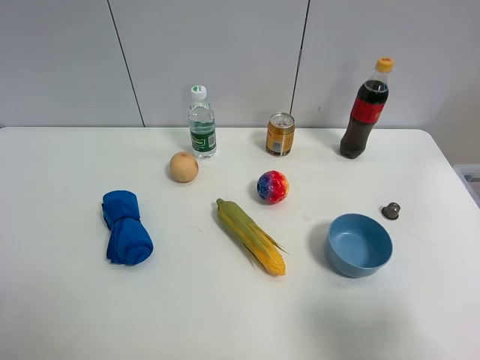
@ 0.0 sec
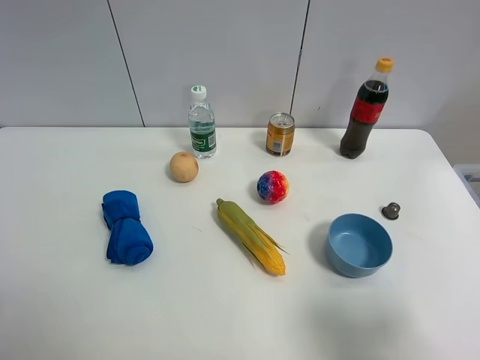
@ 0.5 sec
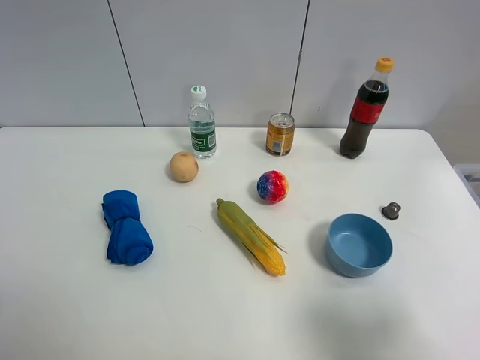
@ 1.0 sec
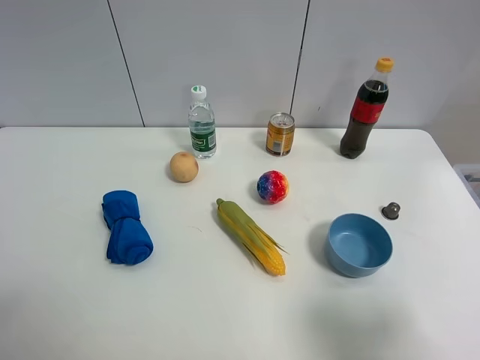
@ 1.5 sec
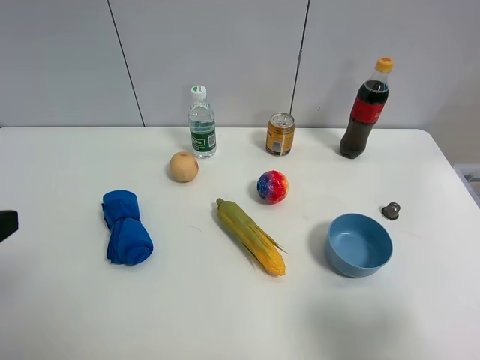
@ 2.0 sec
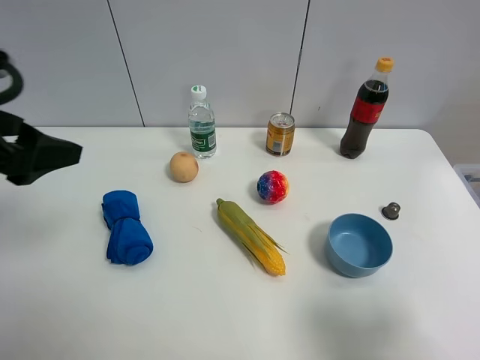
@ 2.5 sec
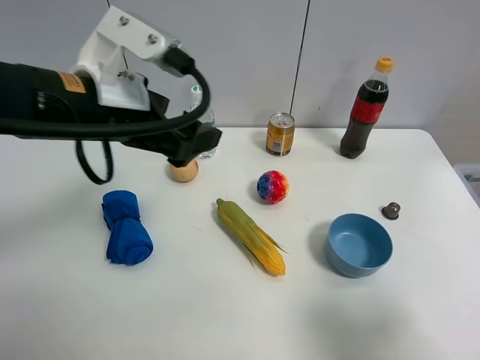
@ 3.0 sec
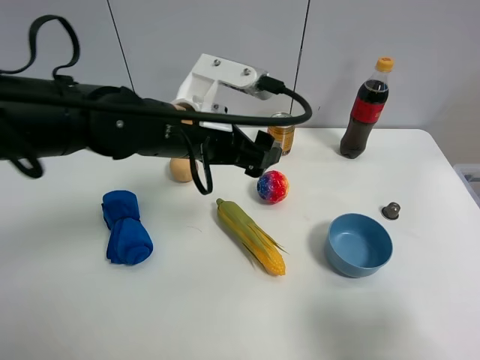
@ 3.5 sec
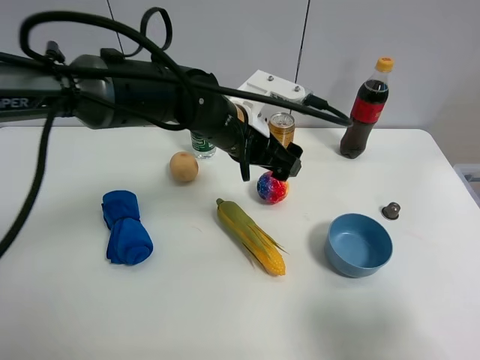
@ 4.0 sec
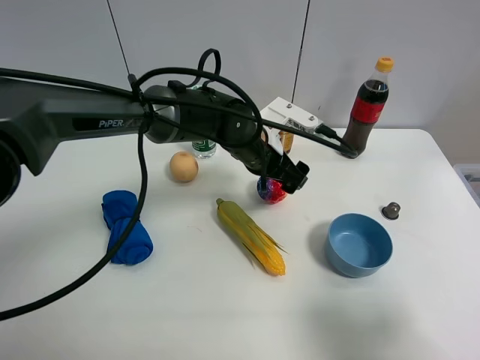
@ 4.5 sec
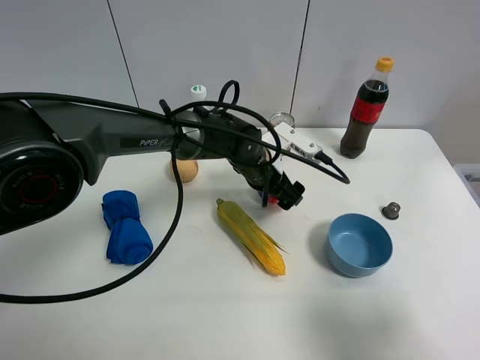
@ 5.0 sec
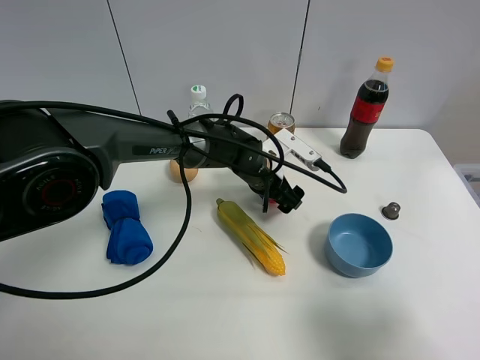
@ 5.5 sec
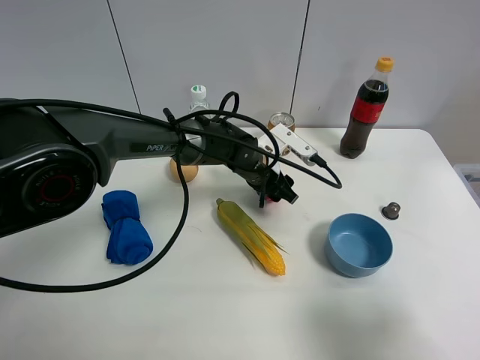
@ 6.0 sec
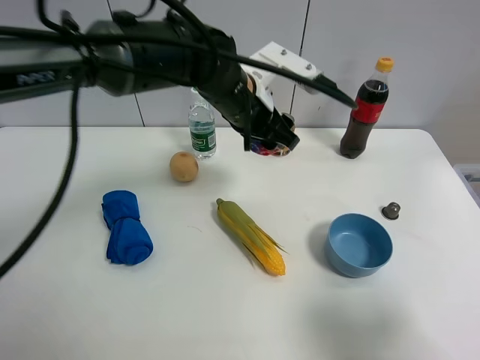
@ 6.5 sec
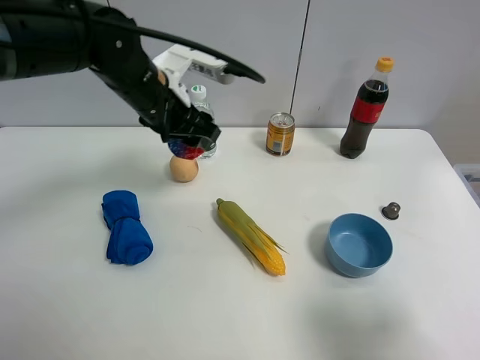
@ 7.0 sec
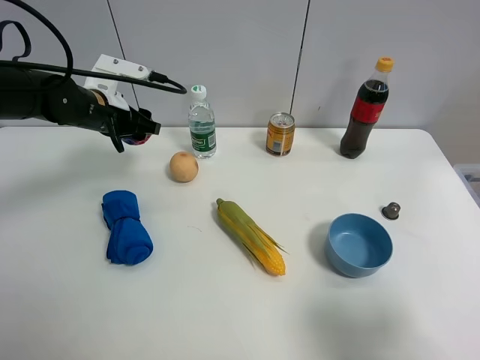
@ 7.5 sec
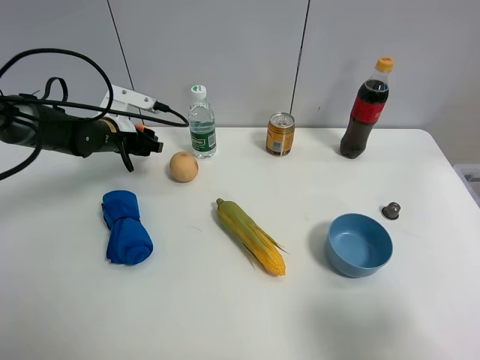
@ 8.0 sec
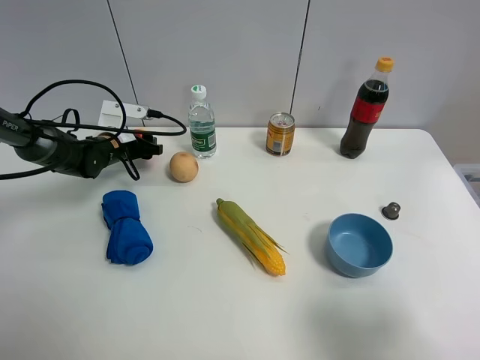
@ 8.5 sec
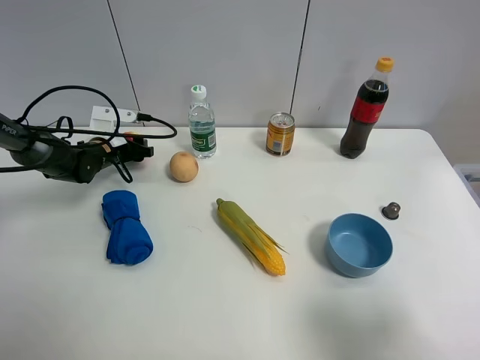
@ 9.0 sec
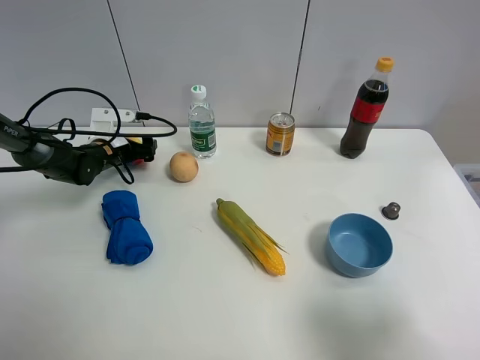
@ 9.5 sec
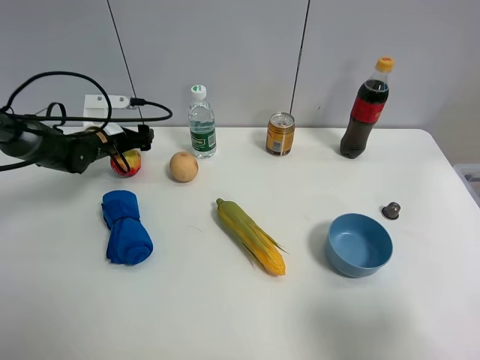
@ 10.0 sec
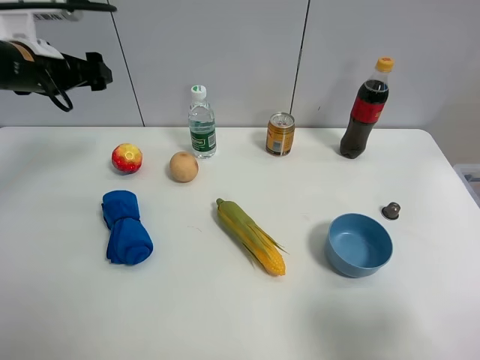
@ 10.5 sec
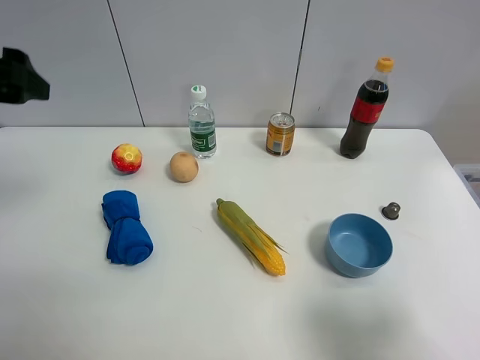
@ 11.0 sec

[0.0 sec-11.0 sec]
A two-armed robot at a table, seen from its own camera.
Task of the whole recording: the gripper move the object.
Step, 0.0 sec to 5.5 sec: Grasp the colorful ball with the left gripper.
Step, 6.0 sec to 9.0 sec: Place the colorful ball on the table with the left gripper.
2.0 sec to 3.5 sec: The left gripper heads to the right and forward, covering approximately 30 cm.
3.5 sec to 5.5 sec: The left gripper shifts about 20 cm downward, forward and to the right.
5.5 sec to 7.5 sec: The left gripper is displaced to the left by roughly 25 cm, and closes its fingers.
7.5 sec to 9.0 sec: The left gripper shifts approximately 15 cm downward.
9.0 sec to 11.0 sec: The left gripper is displaced upward and backward by roughly 35 cm, and opens.

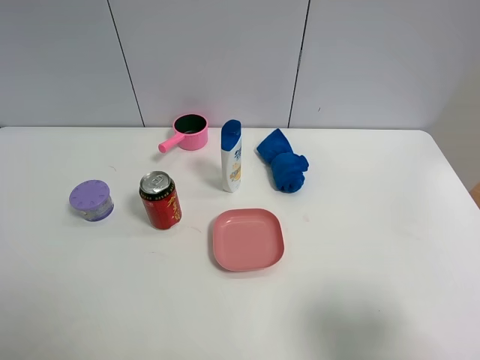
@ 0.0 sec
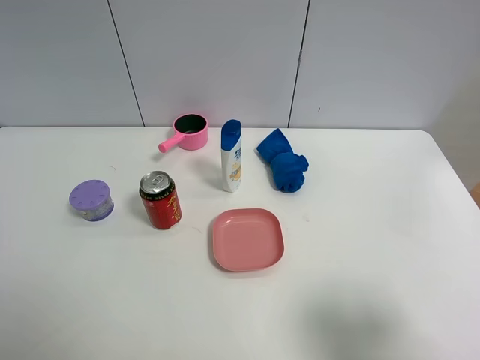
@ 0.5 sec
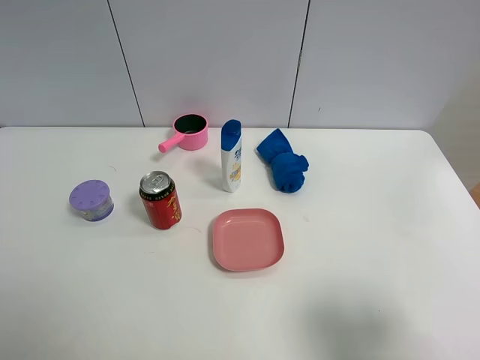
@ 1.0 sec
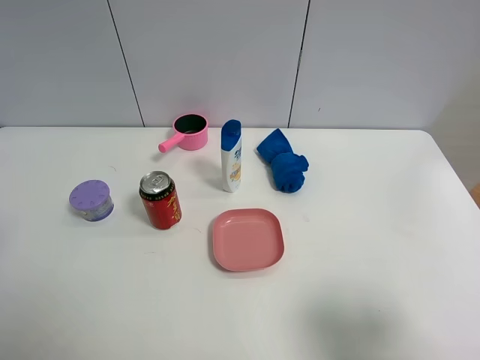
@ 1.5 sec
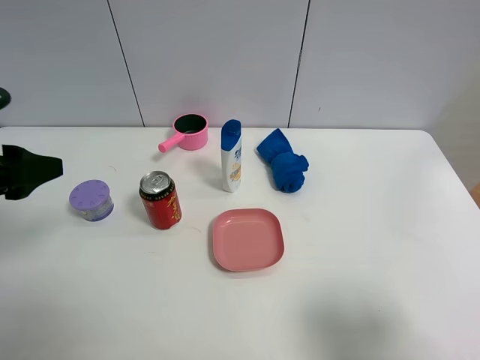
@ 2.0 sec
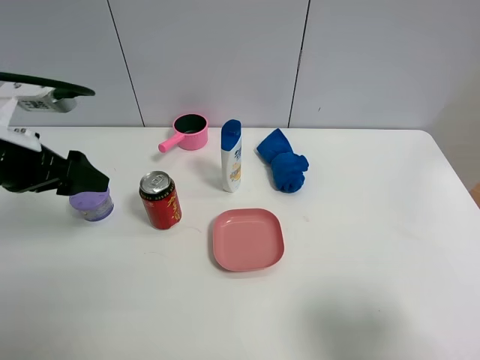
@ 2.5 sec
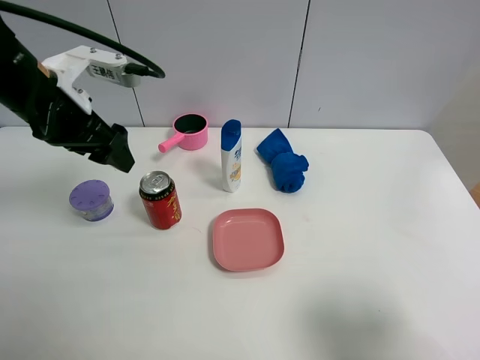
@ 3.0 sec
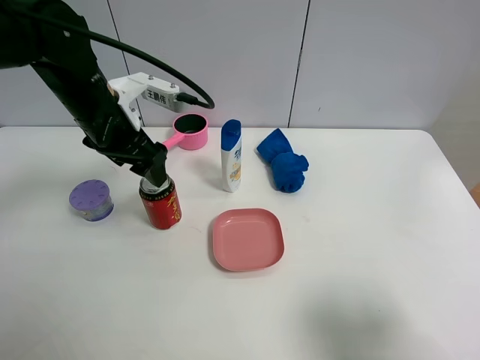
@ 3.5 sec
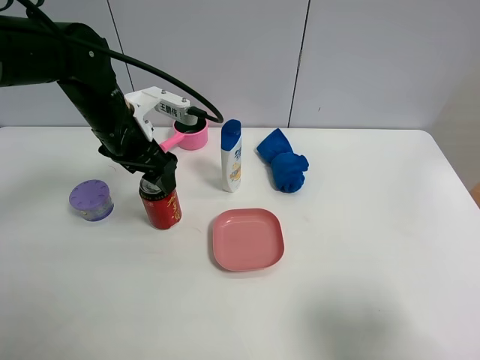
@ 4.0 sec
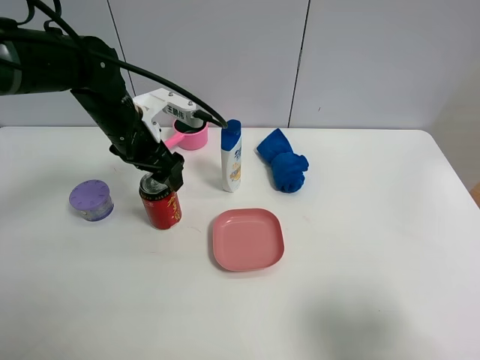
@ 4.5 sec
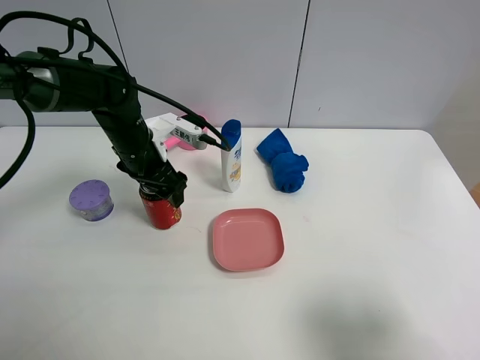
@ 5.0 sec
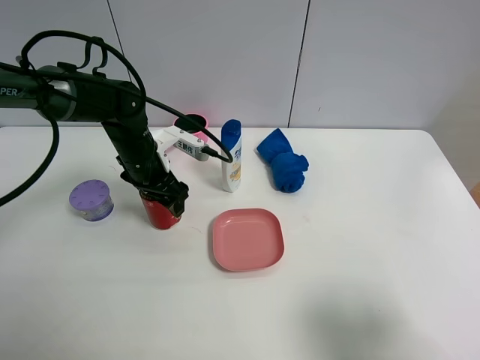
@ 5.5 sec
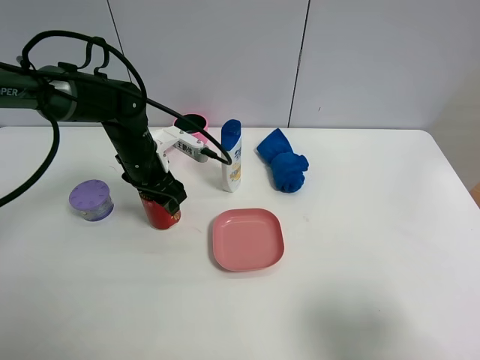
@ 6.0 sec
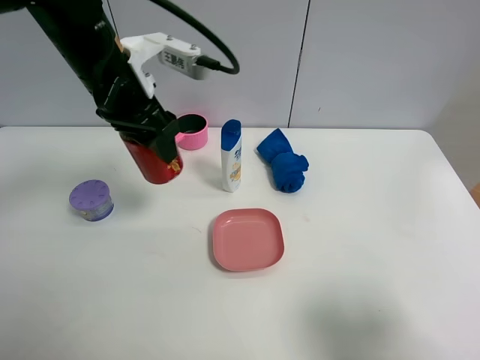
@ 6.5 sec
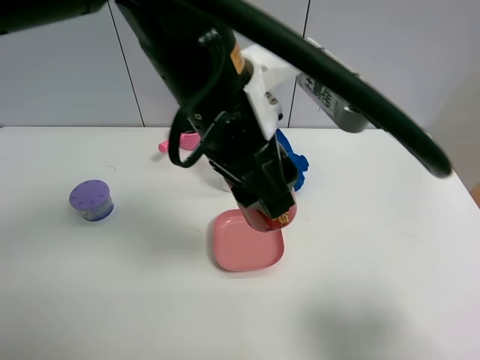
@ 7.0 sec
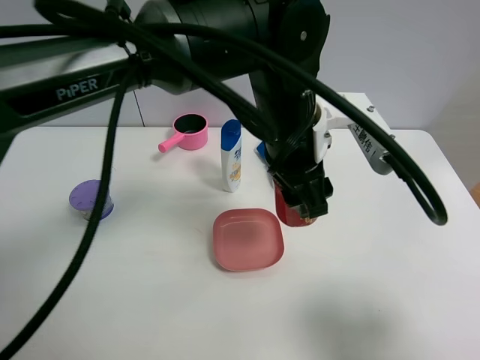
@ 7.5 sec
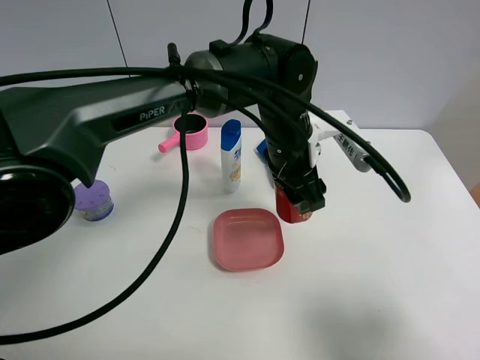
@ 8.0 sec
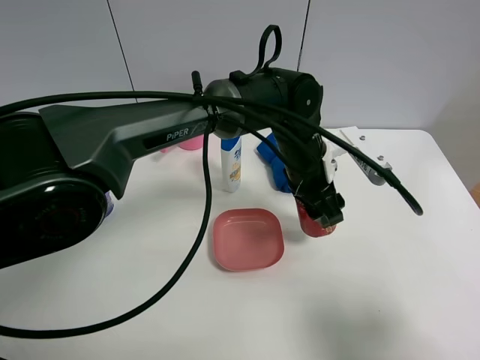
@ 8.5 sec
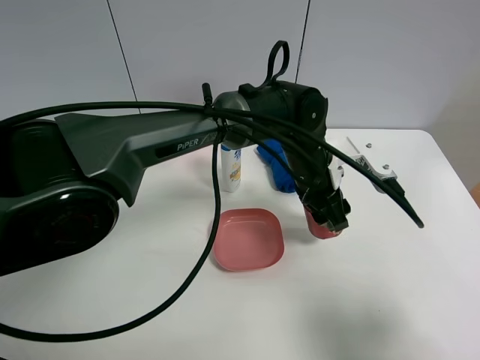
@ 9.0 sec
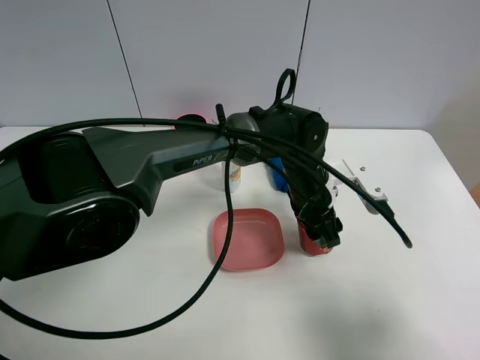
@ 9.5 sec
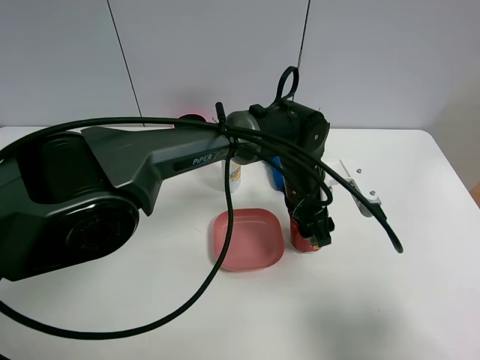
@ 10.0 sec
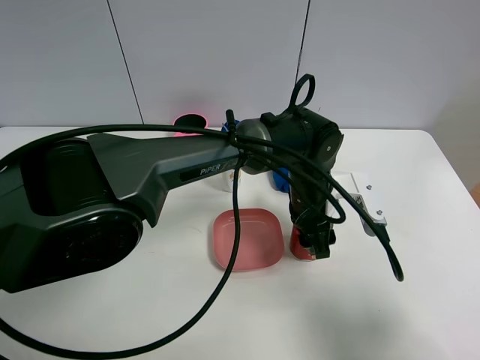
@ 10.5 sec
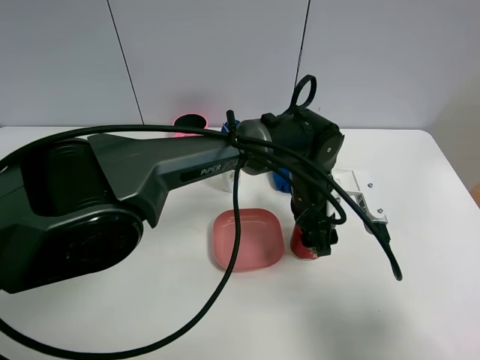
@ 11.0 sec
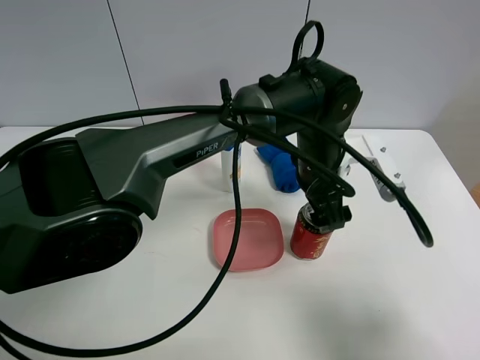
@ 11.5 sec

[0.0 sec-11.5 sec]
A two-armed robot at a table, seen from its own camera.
Task of the whole recording: the gripper move the object.
Step, 0.0 sec to 5.5 sec: Grasp the Jia Duo Bao with the left gripper.
Step, 6.0 sec to 11.0 sec: Place the Jia Duo Bao on the table with the left gripper.
0.0 sec to 2.0 sec: The left gripper moves forward, roughly 20 cm.
2.0 sec to 4.0 sec: The left gripper goes about 20 cm forward and to the right.
4.0 sec to 6.0 sec: The left gripper shifts about 10 cm downward, and closes.
6.0 sec to 7.5 sec: The left gripper is displaced to the right, upward and backward by roughly 25 cm.
7.5 sec to 9.5 sec: The left gripper shifts roughly 15 cm downward.
9.5 sec to 11.5 sec: The left gripper shifts roughly 5 cm upward, and opens its fingers.

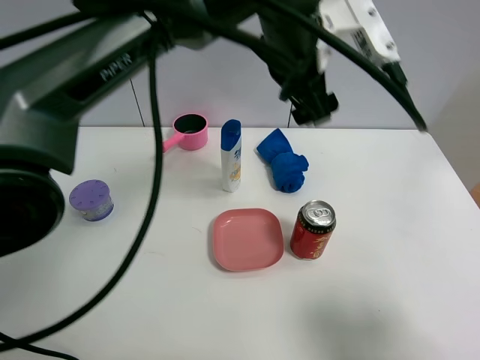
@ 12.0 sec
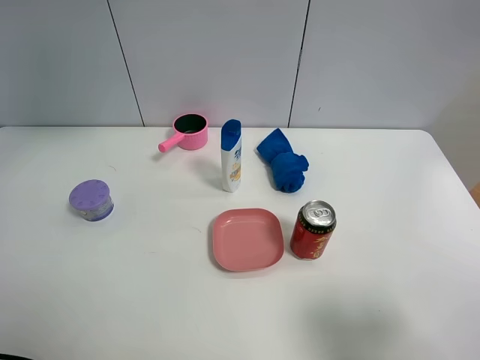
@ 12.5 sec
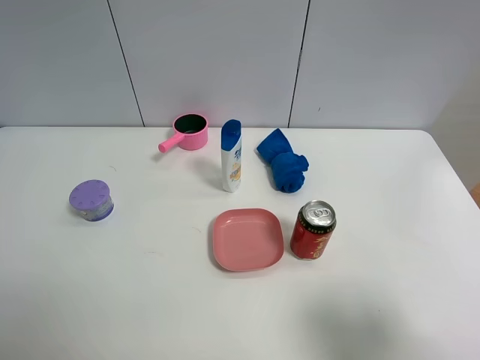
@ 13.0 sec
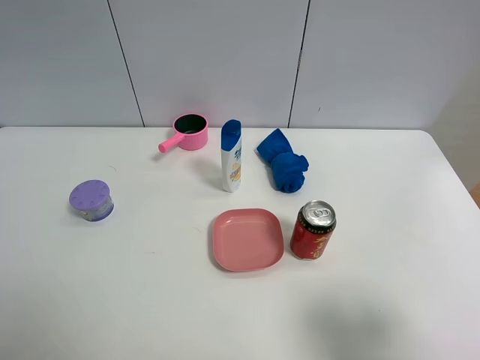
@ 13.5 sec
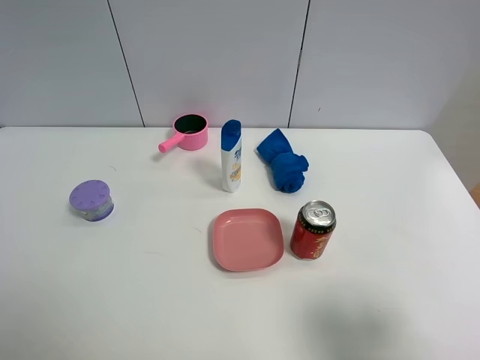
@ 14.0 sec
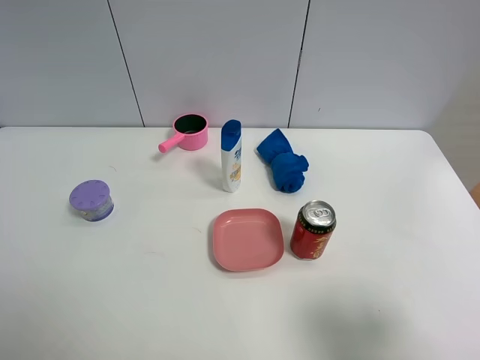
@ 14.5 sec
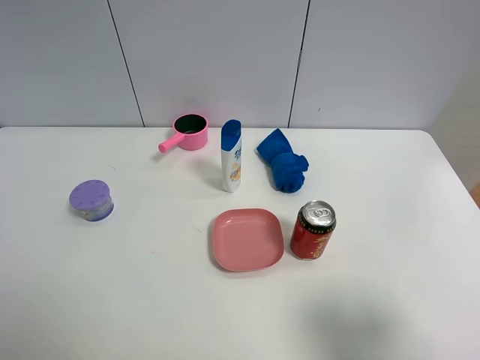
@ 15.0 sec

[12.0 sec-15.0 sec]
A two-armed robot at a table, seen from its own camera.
Task of the whole recording: the gripper move the object.
12.0 sec to 13.5 sec: The left gripper shifts roughly 50 cm to the left, backward and upward.
